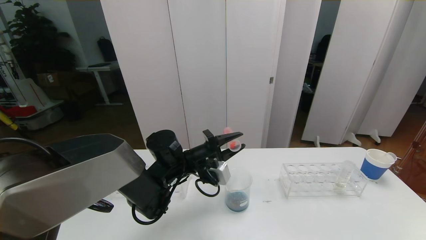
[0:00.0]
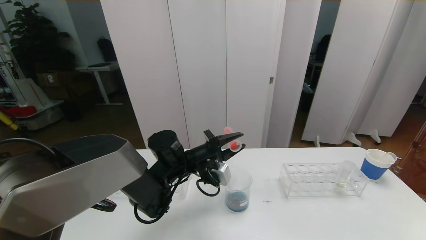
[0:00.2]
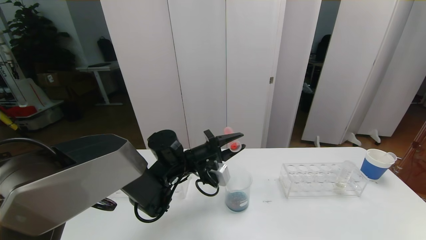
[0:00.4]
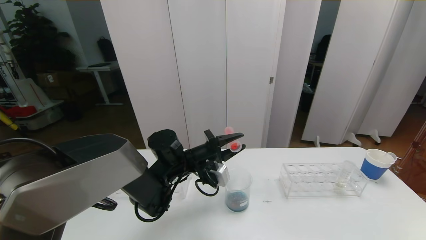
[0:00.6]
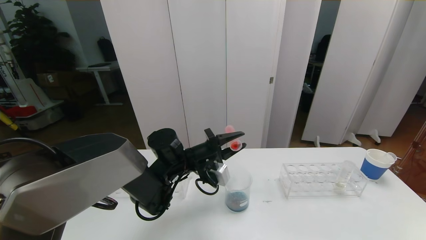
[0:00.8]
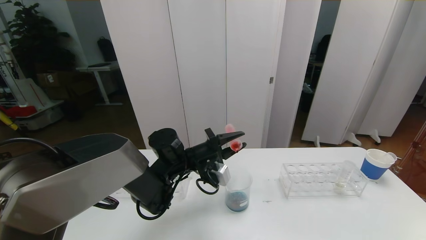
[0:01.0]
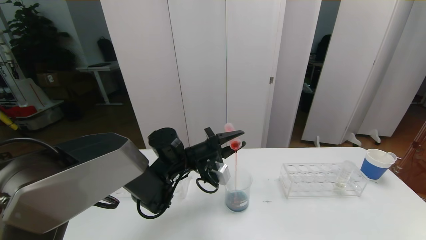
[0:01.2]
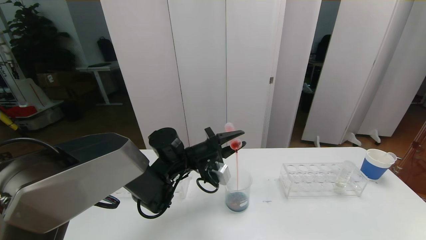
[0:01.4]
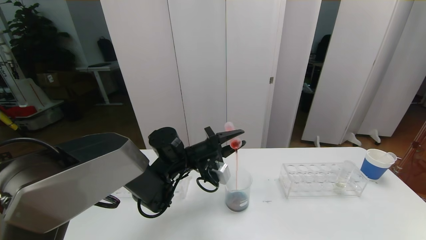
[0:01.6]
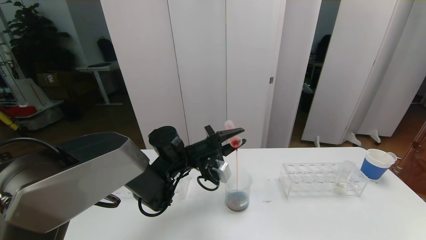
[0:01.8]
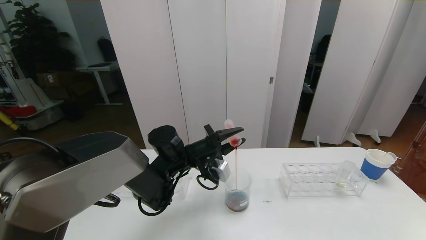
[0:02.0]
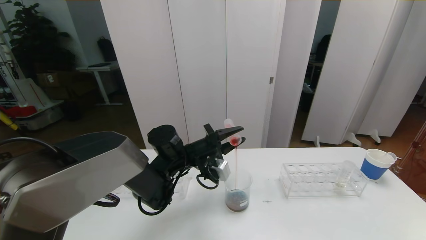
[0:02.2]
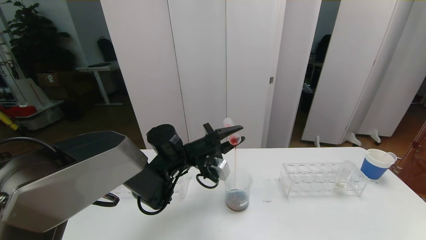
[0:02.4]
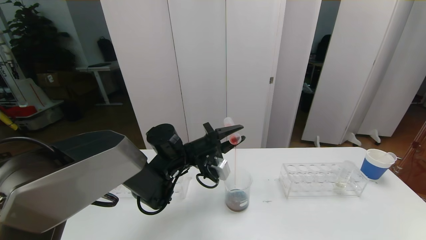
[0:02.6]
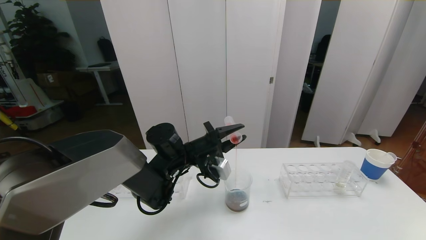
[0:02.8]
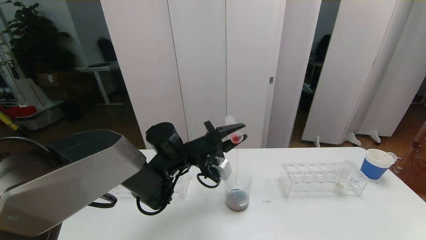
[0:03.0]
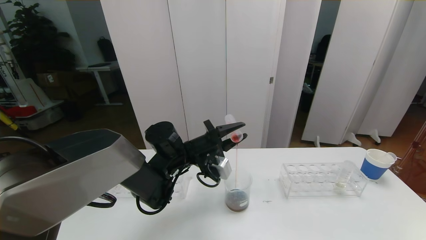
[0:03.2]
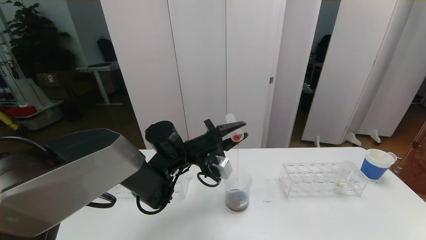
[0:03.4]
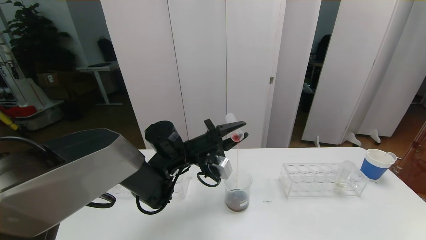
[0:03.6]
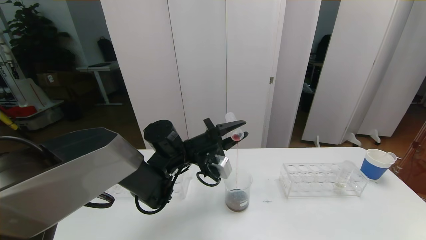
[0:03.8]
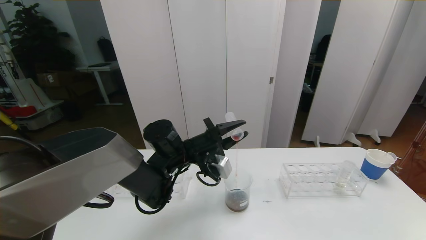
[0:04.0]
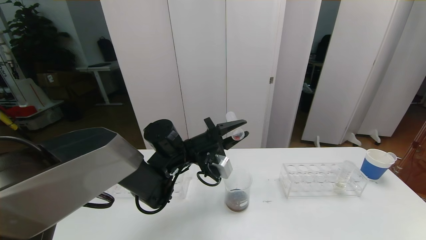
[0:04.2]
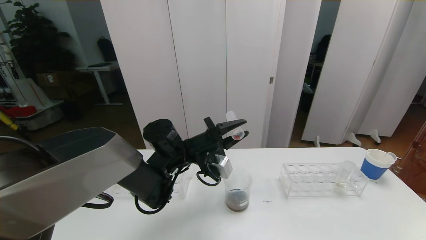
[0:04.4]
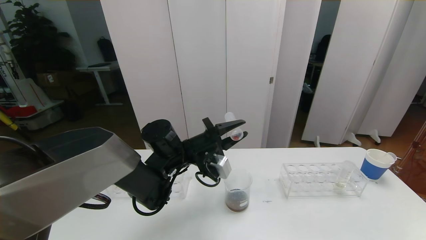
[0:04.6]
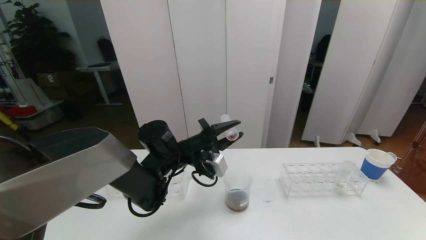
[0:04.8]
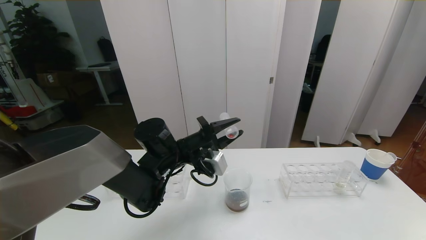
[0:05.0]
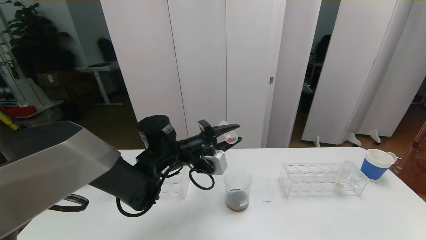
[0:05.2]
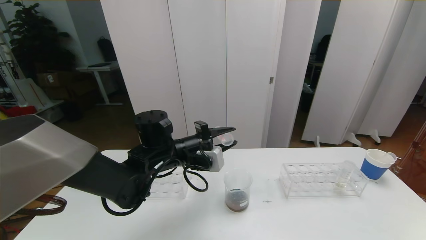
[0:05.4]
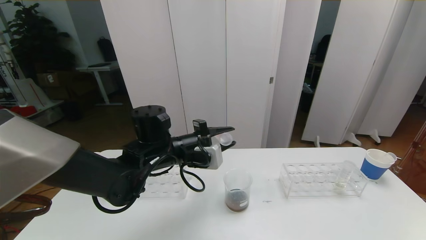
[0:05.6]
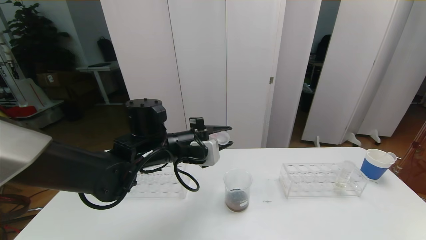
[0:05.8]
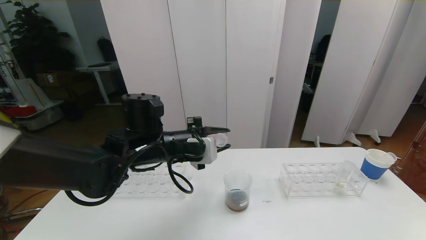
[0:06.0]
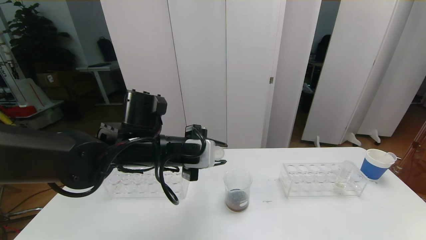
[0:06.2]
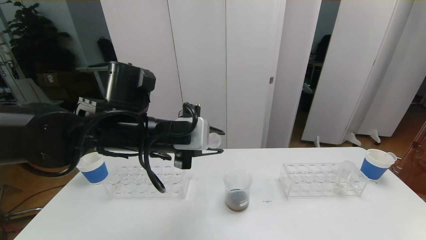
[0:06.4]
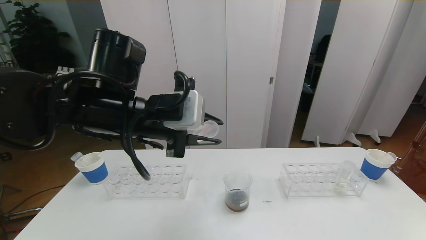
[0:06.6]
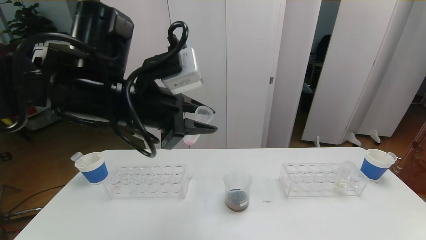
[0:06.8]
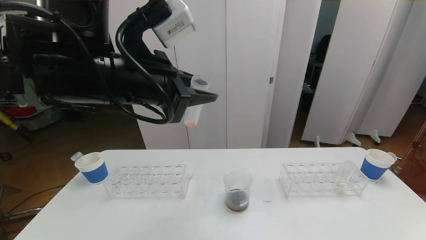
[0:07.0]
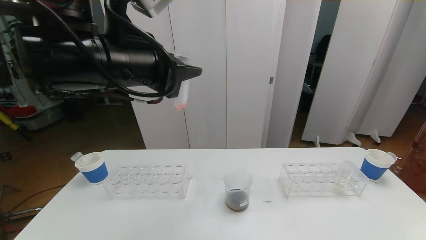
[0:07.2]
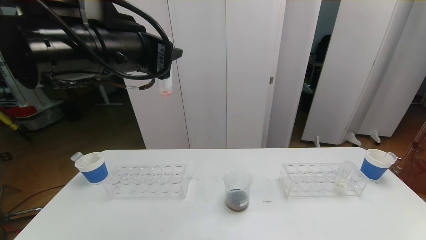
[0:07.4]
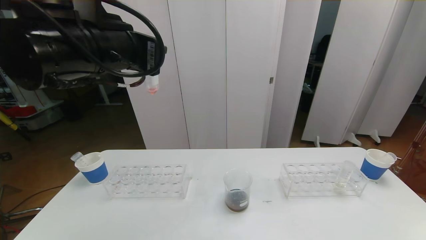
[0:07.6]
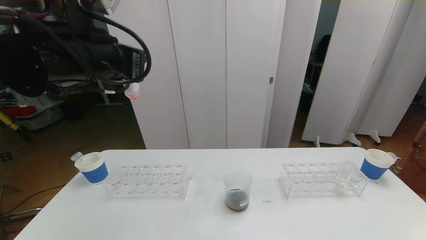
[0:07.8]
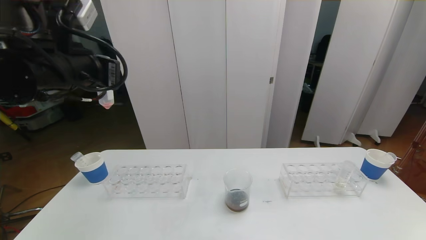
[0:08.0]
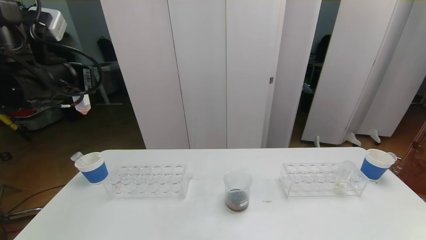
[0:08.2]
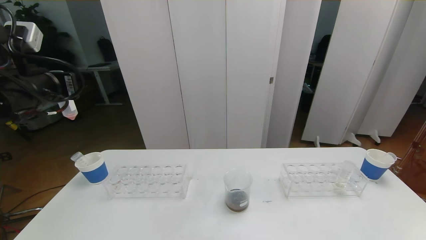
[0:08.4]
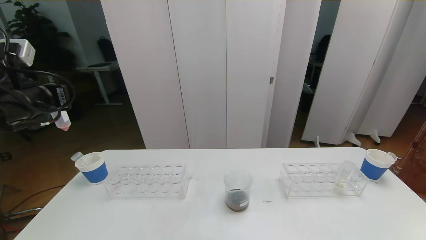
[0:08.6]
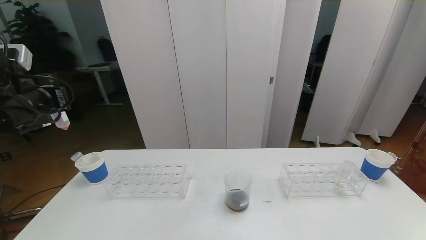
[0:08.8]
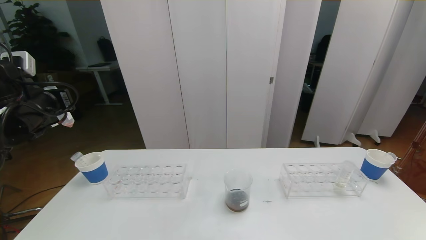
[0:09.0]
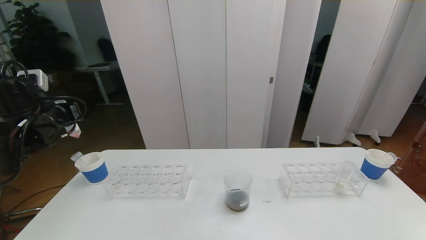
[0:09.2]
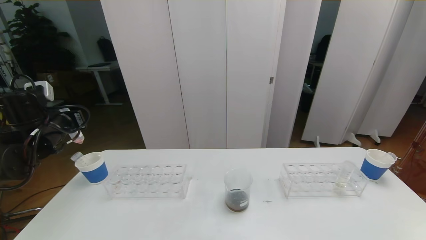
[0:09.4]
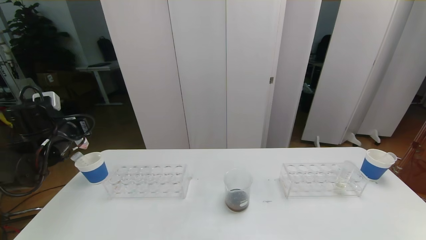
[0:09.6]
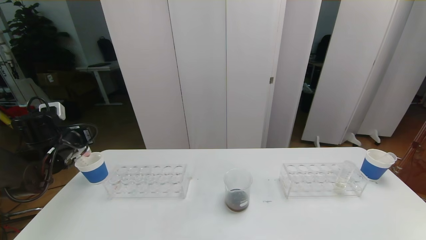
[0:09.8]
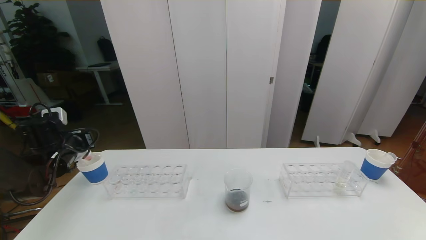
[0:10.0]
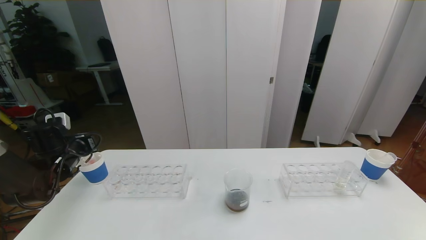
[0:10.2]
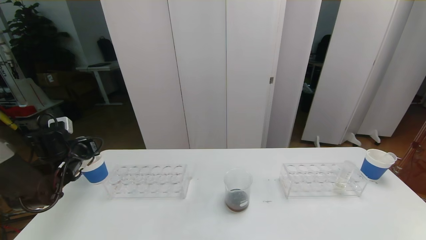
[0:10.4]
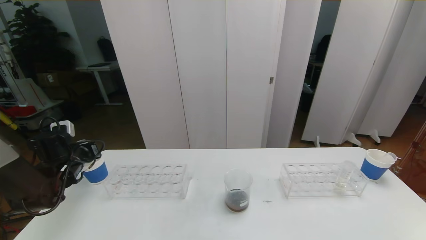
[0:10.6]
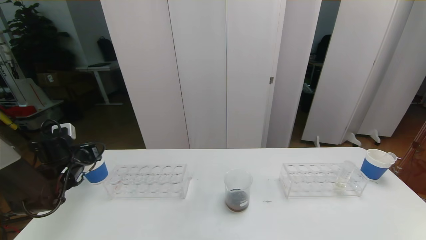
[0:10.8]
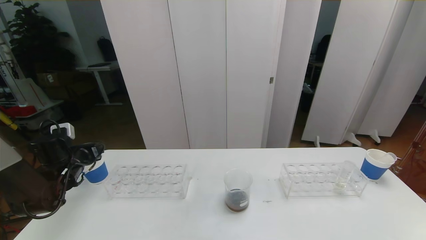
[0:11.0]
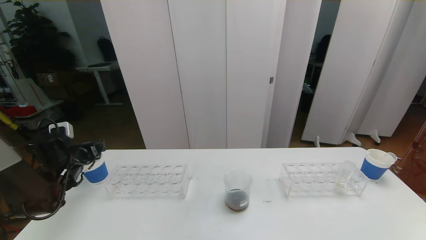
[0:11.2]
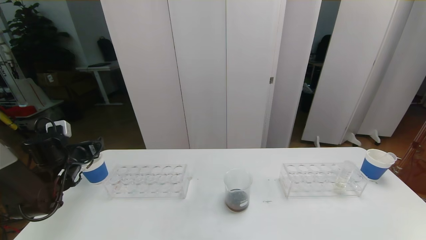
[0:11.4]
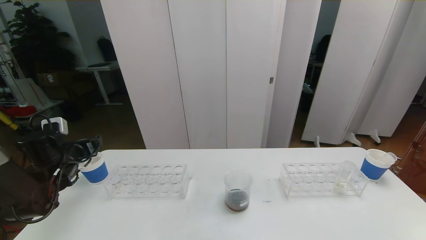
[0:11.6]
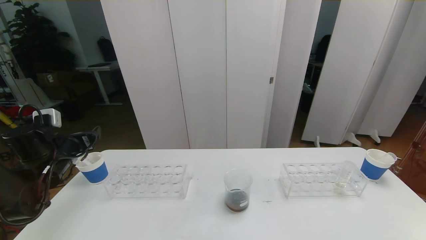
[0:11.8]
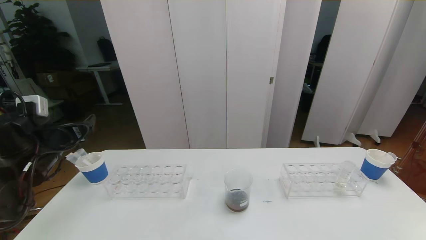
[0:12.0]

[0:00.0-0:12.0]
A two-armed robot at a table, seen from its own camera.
Task of the whole recording: pick up the test tube with red pigment the test tube with blue pigment and the test tube with white pigment by grippers and pour them into the beaker.
0:00.0 to 0:03.0: The grippers stay close to where they were, moving slightly.
0:03.0 to 0:04.4: Both grippers stay put.
0:04.4 to 0:06.0: The left gripper moves upward, roughly 5 cm.
0:06.0 to 0:07.6: The left gripper goes roughly 15 cm upward.
0:07.6 to 0:09.0: The left gripper shifts about 25 cm to the left and downward.
0:09.0 to 0:10.4: The left gripper heads downward, covering some 15 cm.
0:10.4 to 0:12.0: The left gripper shifts approximately 10 cm upward and backward, and opens.

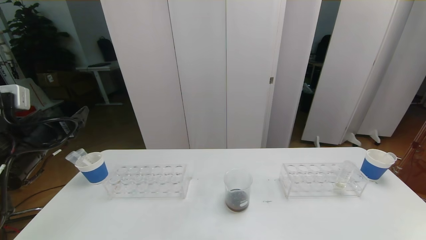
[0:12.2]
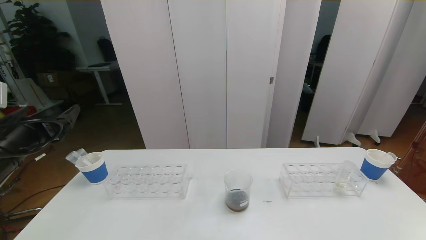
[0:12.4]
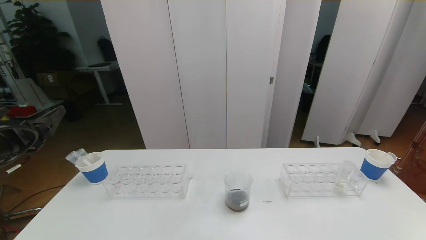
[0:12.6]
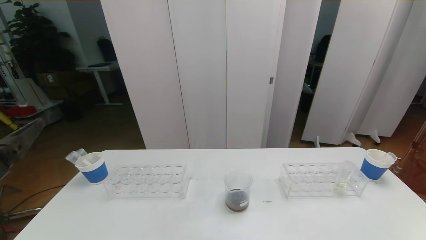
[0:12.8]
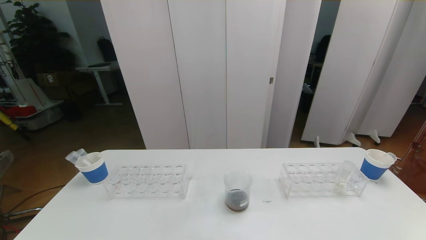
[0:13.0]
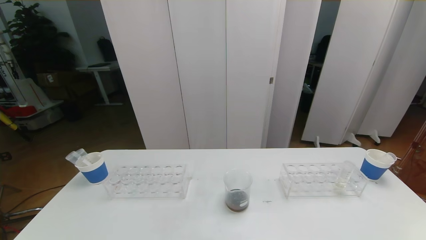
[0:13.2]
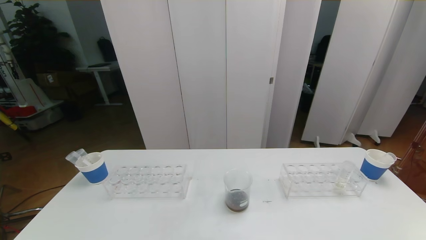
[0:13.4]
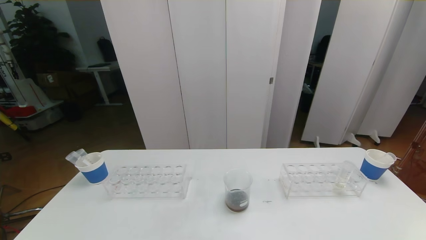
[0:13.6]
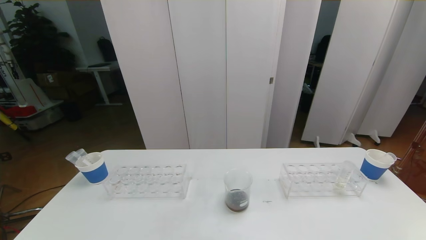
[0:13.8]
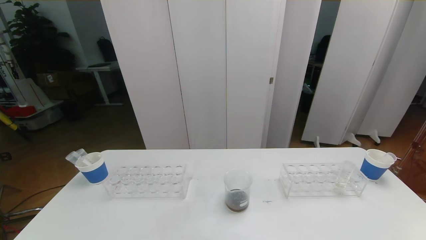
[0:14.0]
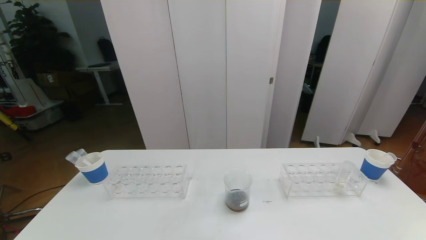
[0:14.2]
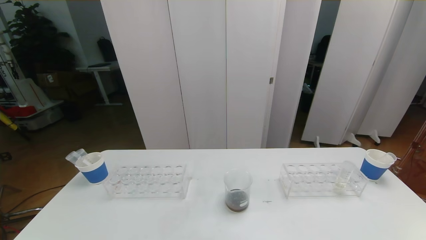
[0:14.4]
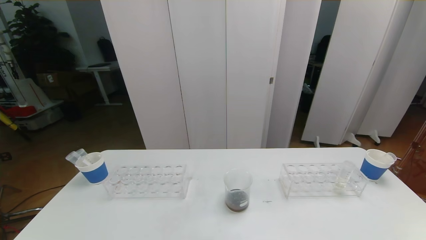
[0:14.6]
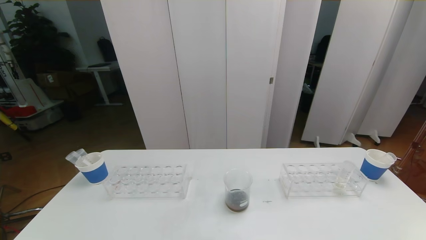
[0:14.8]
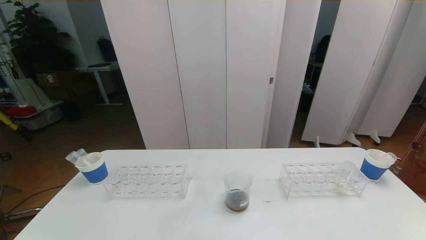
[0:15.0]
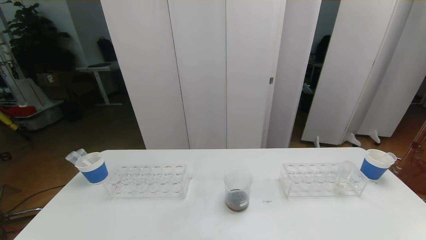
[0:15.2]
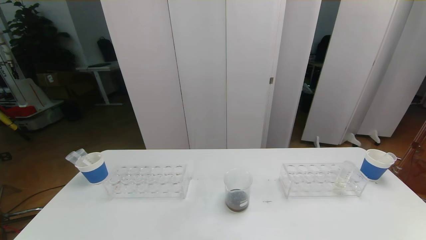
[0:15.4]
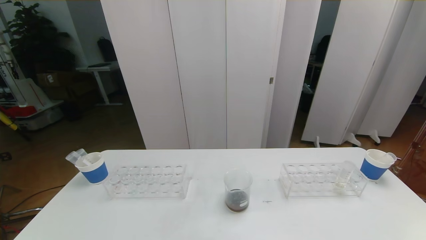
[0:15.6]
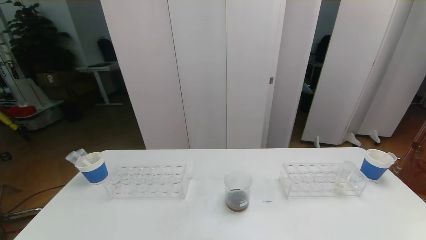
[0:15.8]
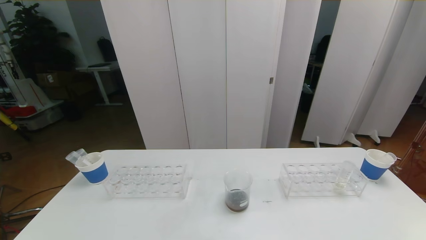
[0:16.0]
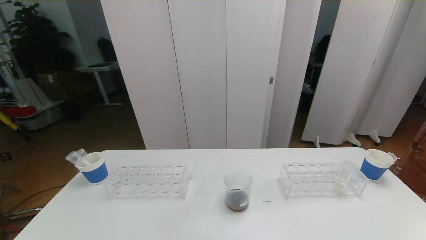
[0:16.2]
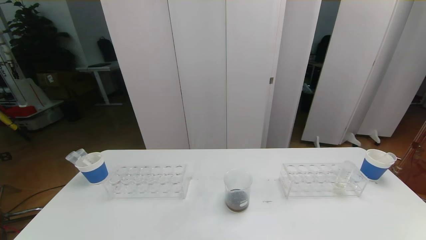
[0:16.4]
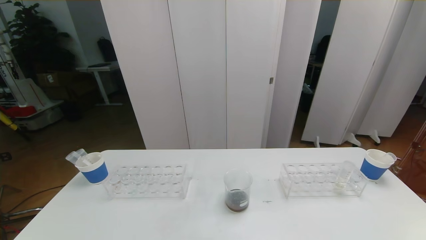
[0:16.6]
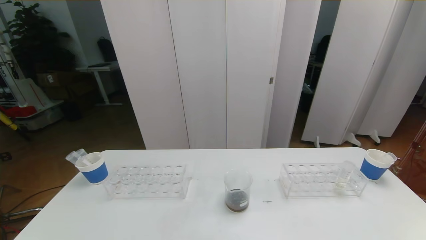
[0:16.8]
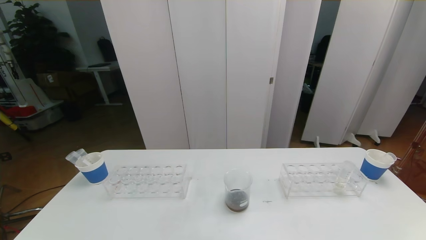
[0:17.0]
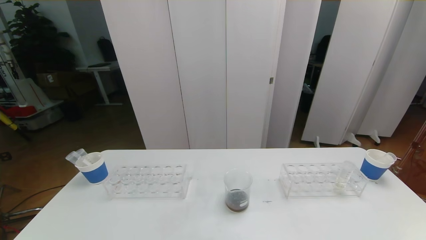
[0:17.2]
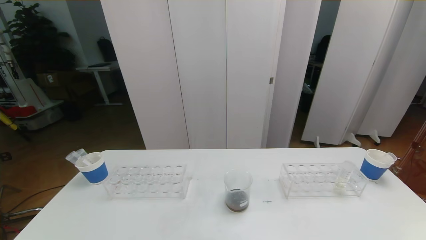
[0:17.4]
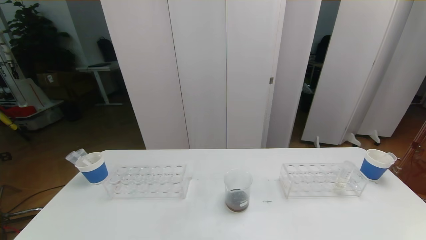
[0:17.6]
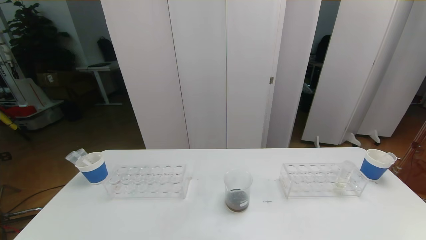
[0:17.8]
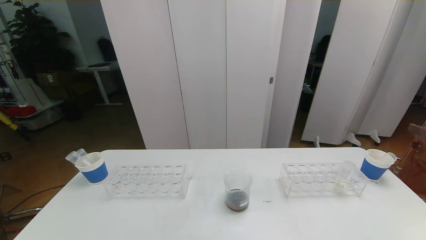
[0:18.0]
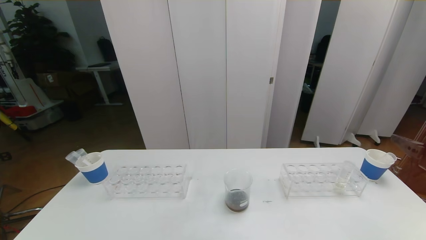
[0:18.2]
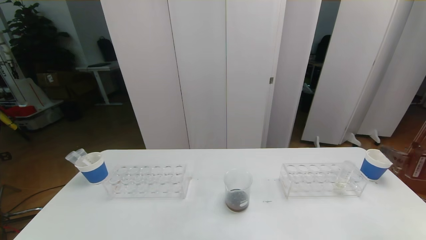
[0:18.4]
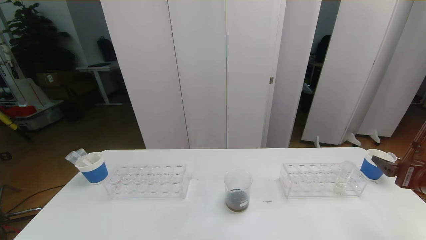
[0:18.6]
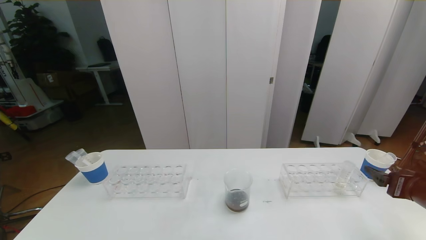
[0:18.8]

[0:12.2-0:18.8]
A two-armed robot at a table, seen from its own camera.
Task of the whole recording: pick up the test tube with red pigment the test tube with blue pigment and the test tube with white pigment by grippers and pour them into the beaker.
0:12.2 to 0:13.8: The left gripper heads backward, covering approximately 30 cm.
0:17.2 to 0:18.8: The right gripper heads forward and downward, covering roughly 25 cm.
